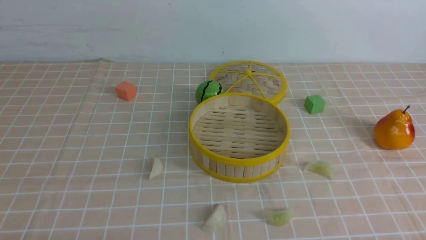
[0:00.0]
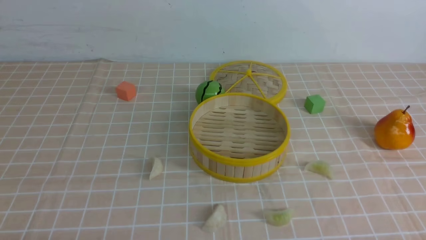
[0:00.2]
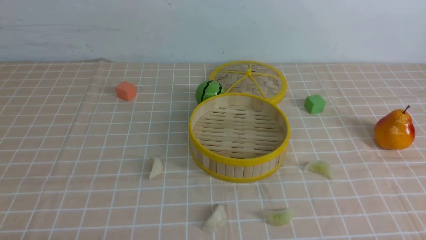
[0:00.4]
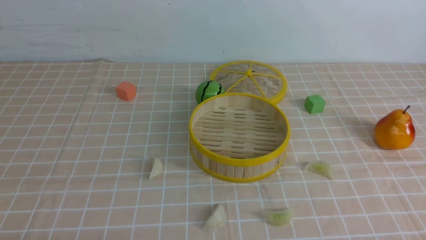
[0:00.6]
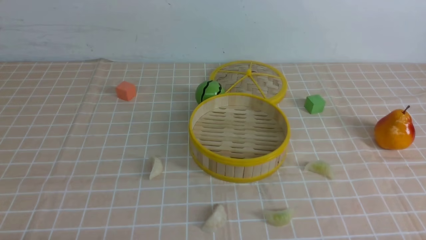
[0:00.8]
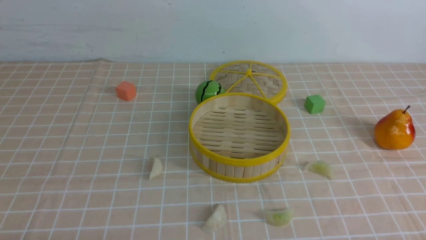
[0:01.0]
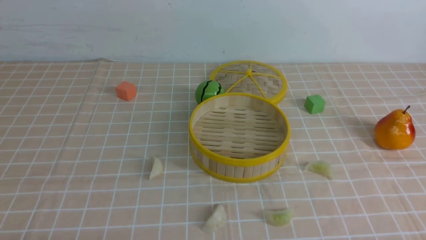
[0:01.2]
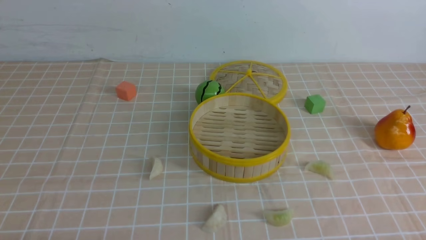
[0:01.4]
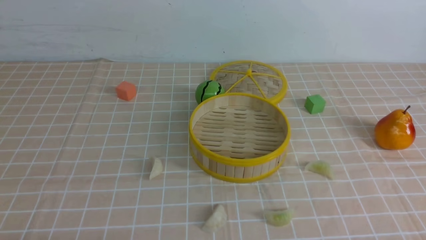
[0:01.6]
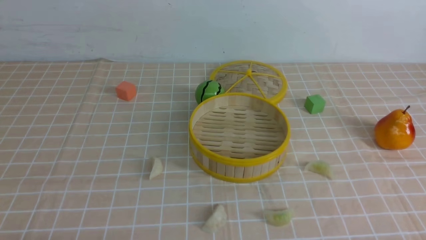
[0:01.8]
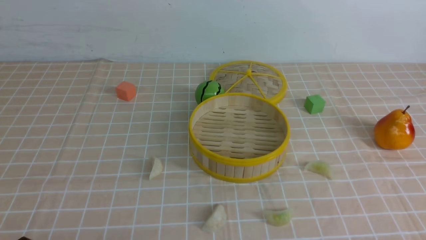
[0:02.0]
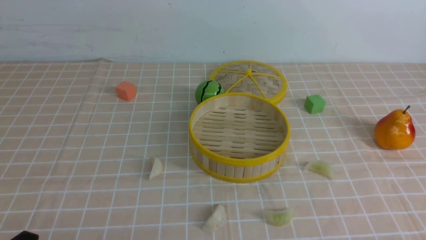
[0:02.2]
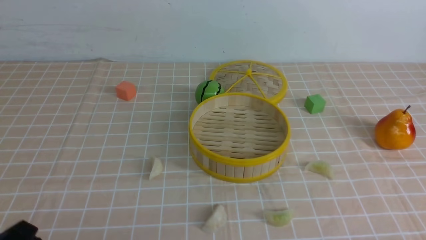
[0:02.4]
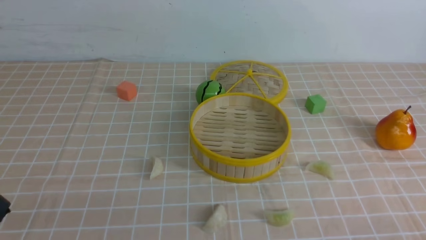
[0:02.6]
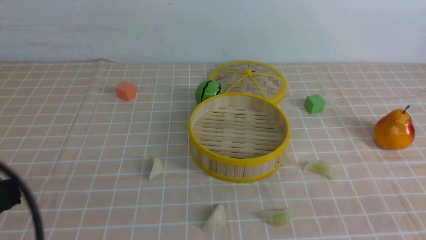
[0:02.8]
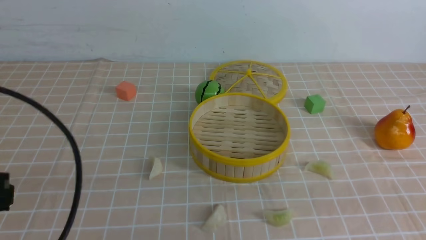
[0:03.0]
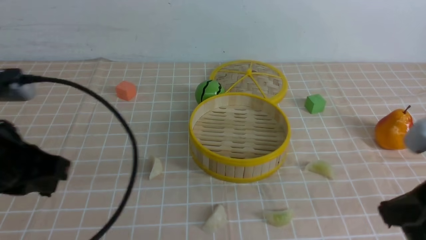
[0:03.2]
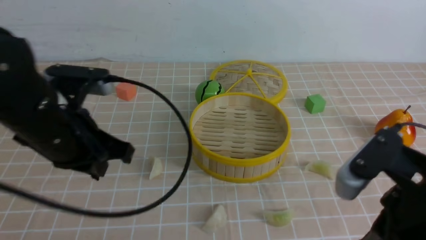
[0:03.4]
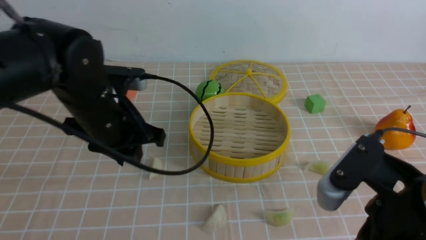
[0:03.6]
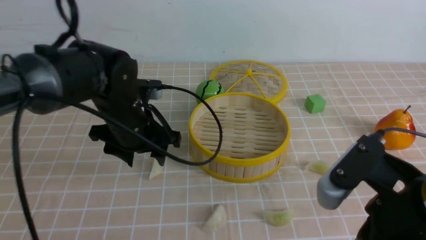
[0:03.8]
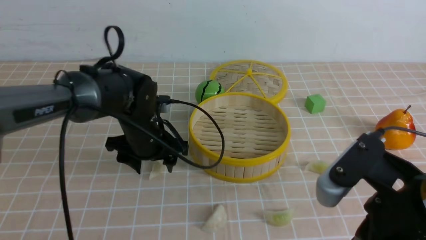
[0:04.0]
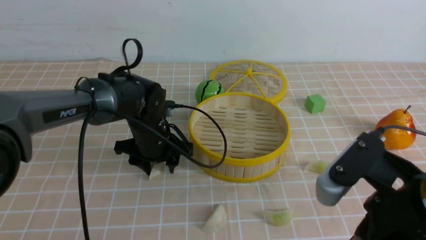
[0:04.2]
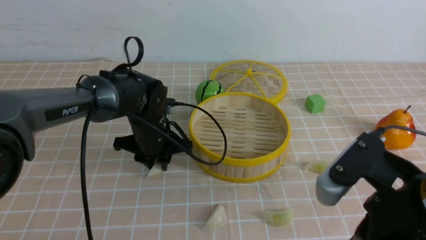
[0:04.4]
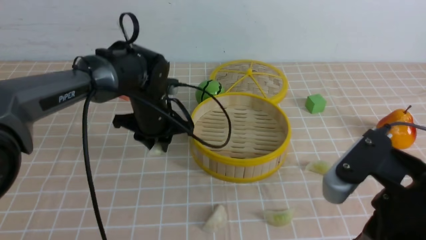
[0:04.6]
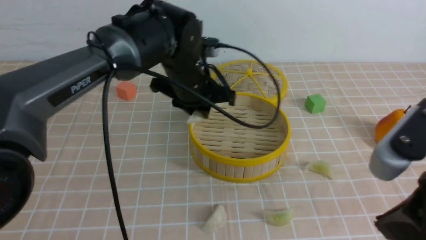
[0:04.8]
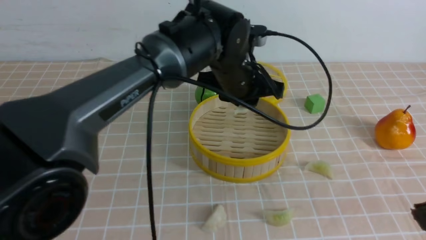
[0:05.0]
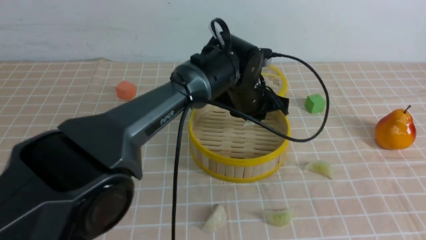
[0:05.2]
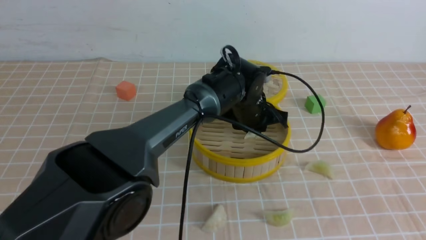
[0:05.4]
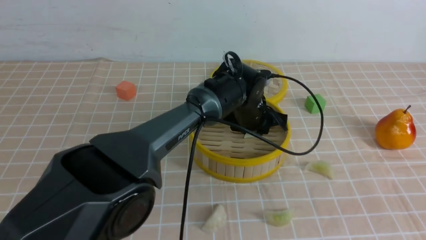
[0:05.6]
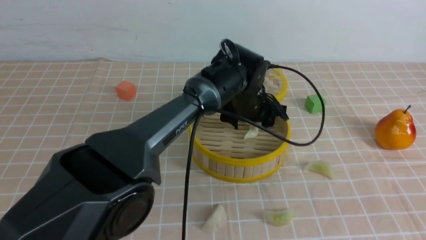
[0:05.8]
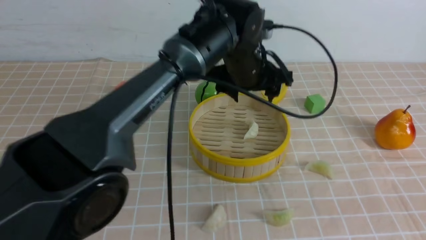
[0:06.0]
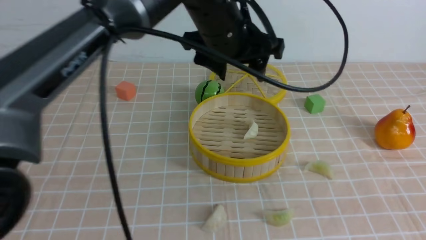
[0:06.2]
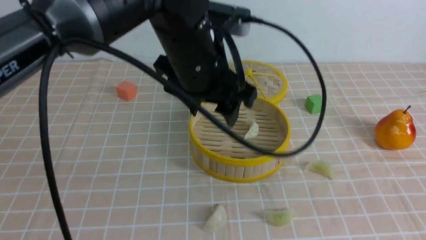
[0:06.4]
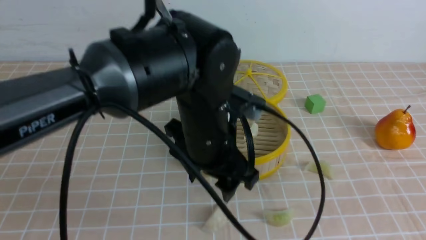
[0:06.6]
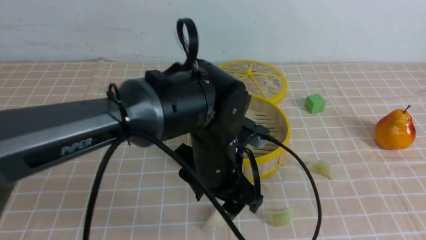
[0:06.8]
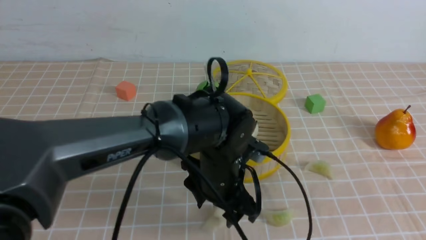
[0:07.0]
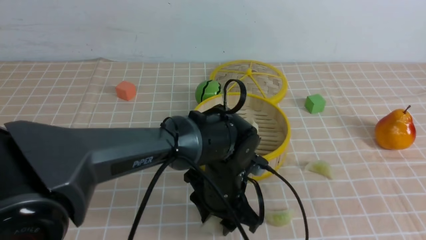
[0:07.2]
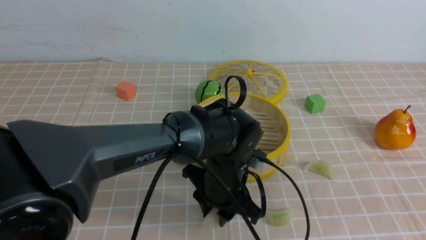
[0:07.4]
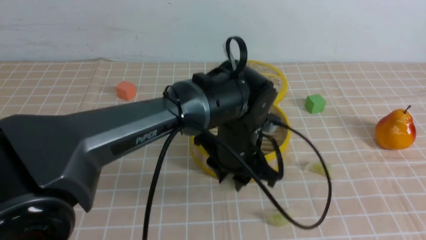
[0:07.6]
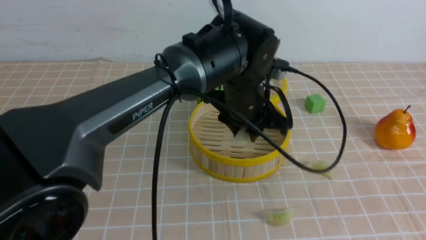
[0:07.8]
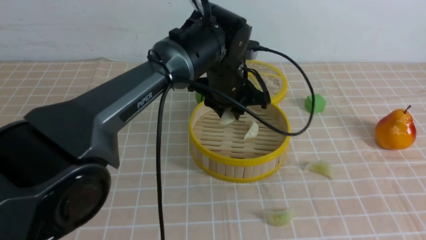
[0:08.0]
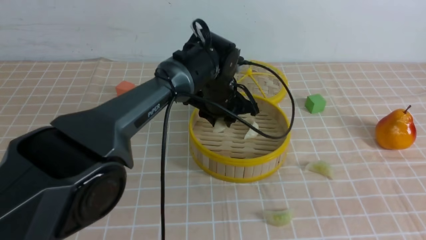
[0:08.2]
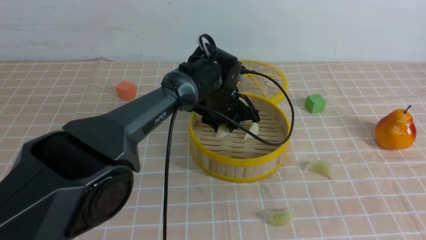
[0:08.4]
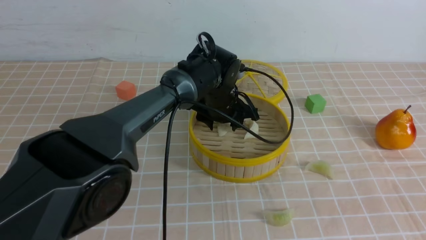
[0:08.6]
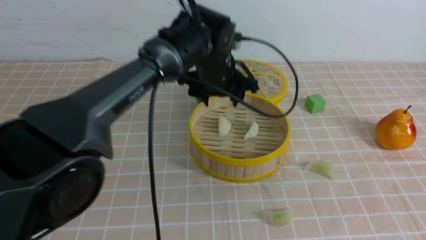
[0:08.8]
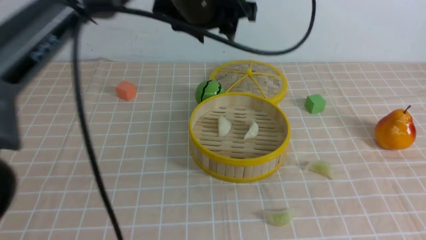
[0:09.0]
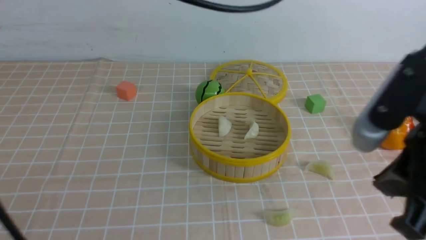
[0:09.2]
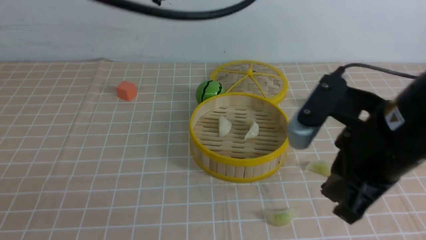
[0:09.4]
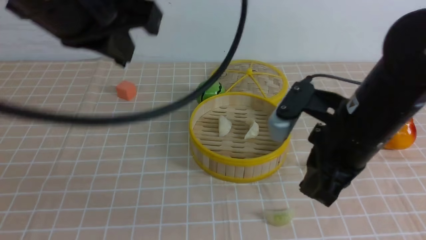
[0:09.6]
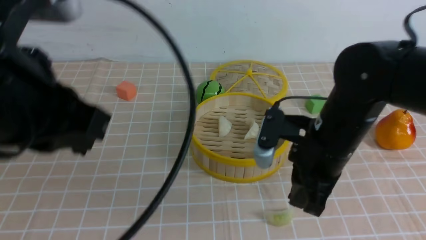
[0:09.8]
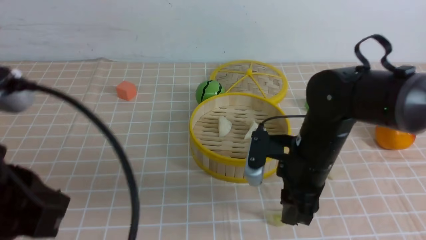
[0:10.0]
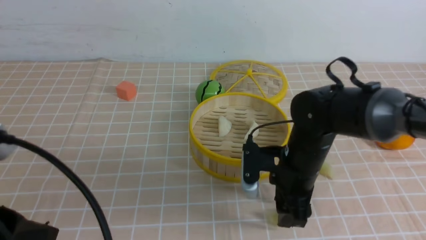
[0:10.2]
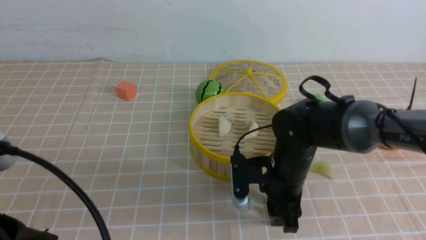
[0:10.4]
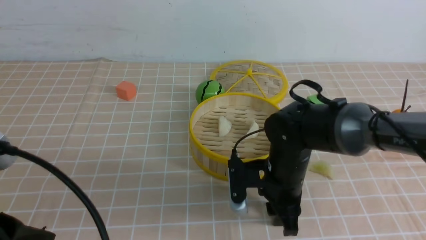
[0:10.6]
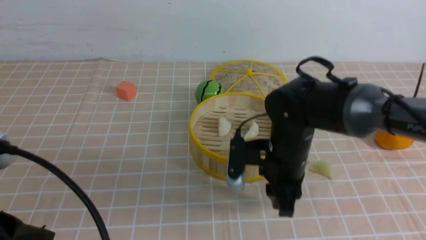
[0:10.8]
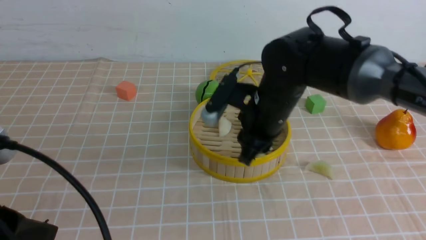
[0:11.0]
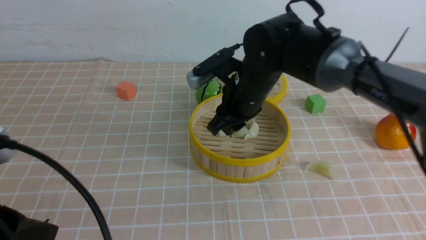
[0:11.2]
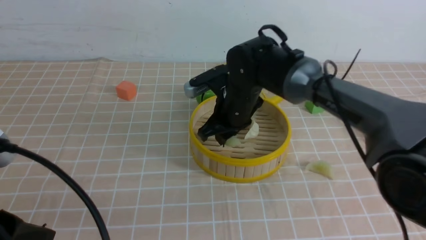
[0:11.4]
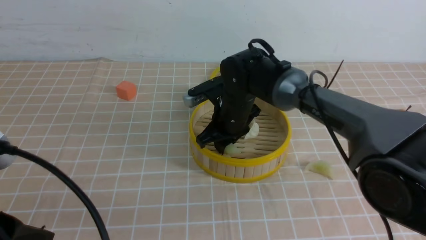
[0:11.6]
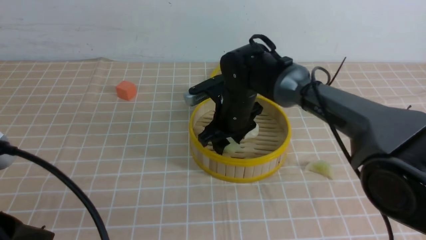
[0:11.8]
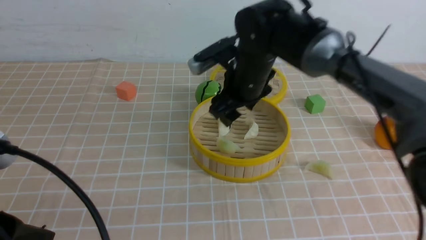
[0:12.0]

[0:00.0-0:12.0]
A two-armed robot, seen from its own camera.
Task of the whole recording: put the dumplings into the steamer on the table with the brown tablecloth.
Step, 0:00.0 to 0:04.2: use the left arm to grab a dumpling.
Step, 0:04.4 to 0:05.8: use the left arm to put the dumpling into the steamer.
Step, 0:06.0 to 0:07.2: use the left arm to grab a dumpling.
Step, 0:07.4 to 0:08.6: use the left arm to put the dumpling into the steamer.
Step, 0:09.0 to 0:10.4: use the right arm to grab a dumpling.
Step, 0:10.6 to 0:12.0: use the right arm to put the dumpling into the steamer.
0:01.6 to 0:03.0: The left gripper heads upward, covering approximately 15 cm, and closes.
0:03.0 to 0:04.4: The right gripper moves to the left, some 10 cm; the left gripper goes approximately 35 cm forward, downward and to the right, and opens its fingers.
0:04.4 to 0:06.0: The left gripper goes about 20 cm to the right and upward, and opens up; the right gripper shifts about 10 cm to the right, upward and backward.
0:06.0 to 0:07.6: The left gripper shifts some 15 cm backward and downward, and closes its fingers.
0:07.6 to 0:09.0: The left gripper moves up and down over about 15 cm, changing direction 2 times.
0:09.0 to 0:10.4: The left gripper heads backward and to the left, covering approximately 35 cm, and closes its fingers; the right gripper is displaced downward, forward and to the left by approximately 30 cm, and opens its fingers.
0:10.4 to 0:12.0: The right gripper moves forward, upward and to the left, approximately 15 cm.

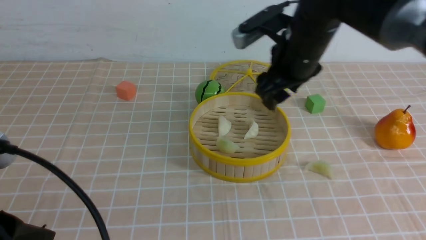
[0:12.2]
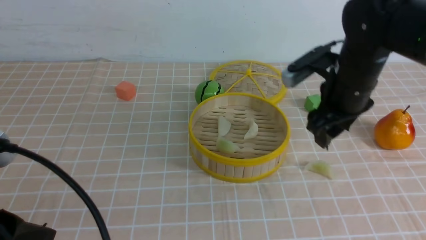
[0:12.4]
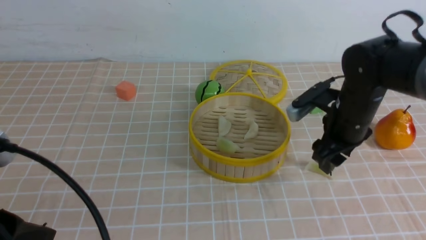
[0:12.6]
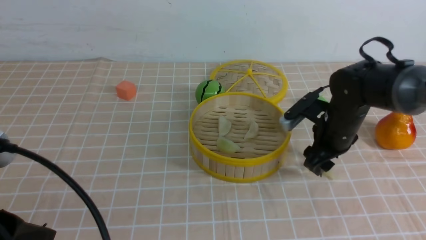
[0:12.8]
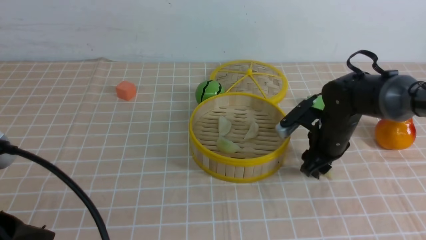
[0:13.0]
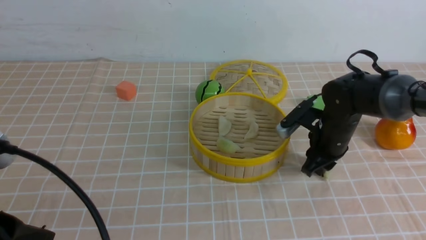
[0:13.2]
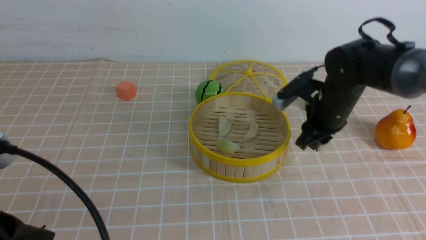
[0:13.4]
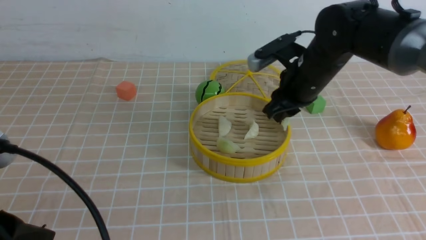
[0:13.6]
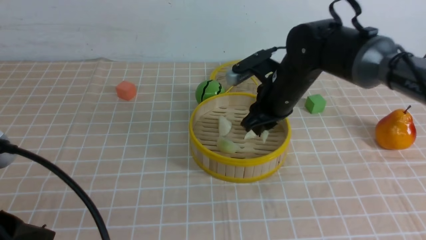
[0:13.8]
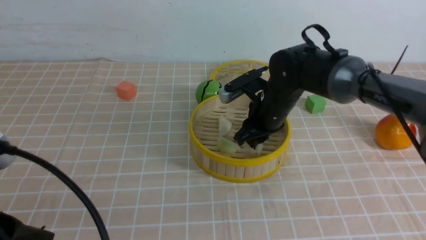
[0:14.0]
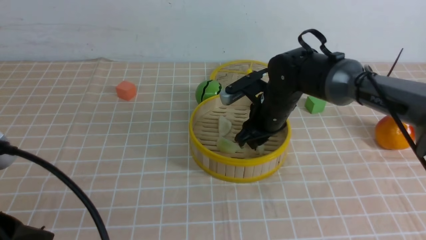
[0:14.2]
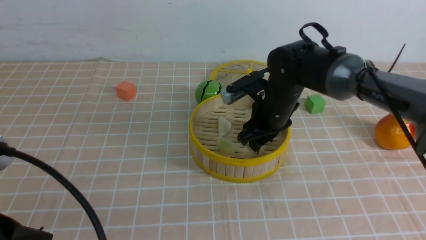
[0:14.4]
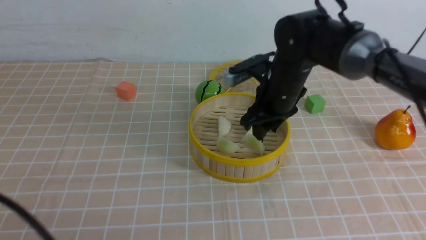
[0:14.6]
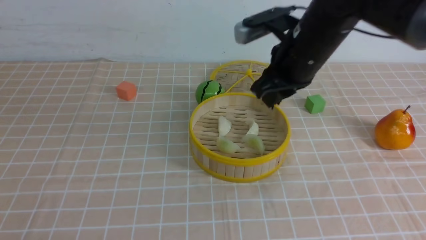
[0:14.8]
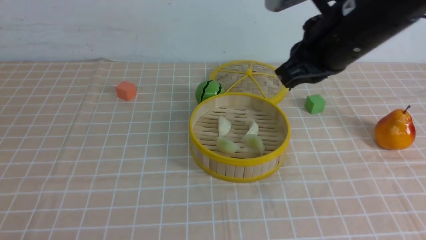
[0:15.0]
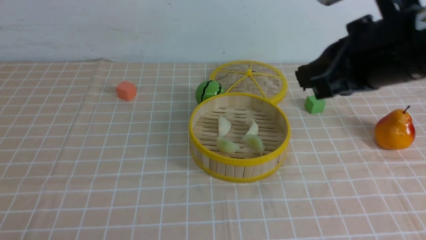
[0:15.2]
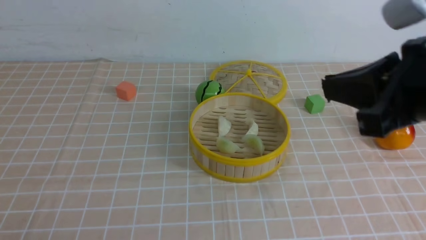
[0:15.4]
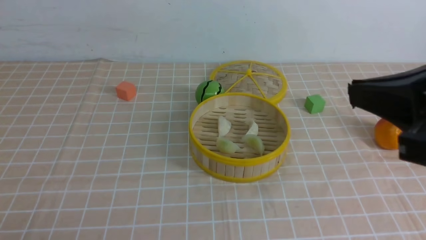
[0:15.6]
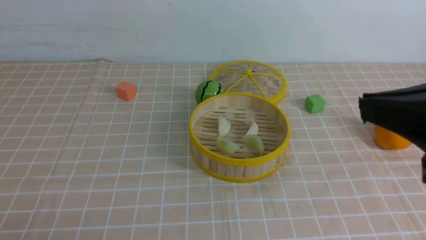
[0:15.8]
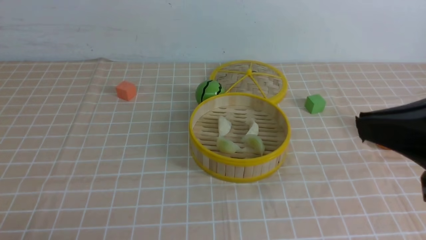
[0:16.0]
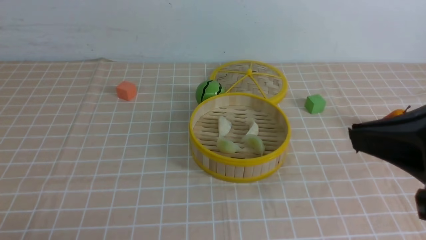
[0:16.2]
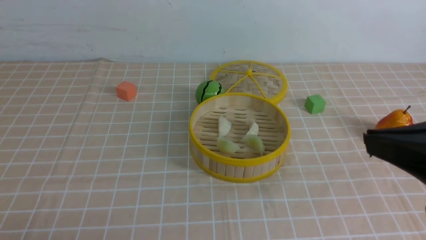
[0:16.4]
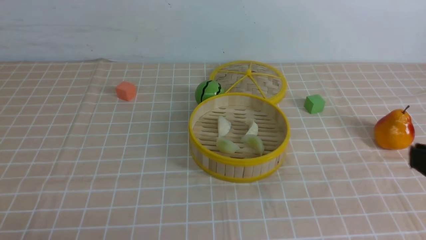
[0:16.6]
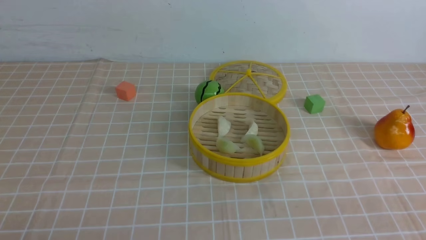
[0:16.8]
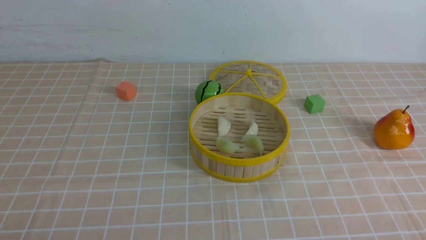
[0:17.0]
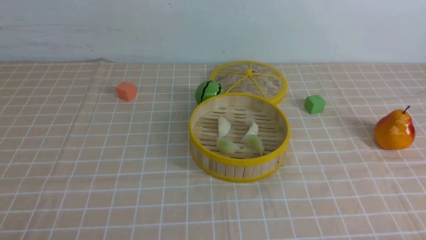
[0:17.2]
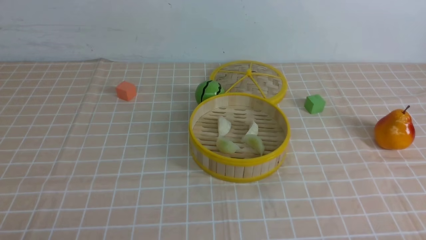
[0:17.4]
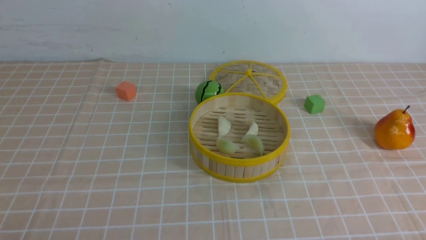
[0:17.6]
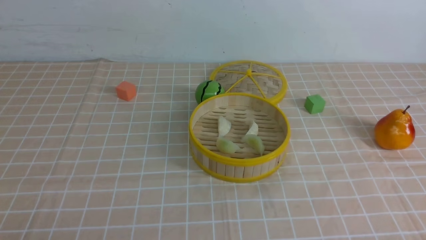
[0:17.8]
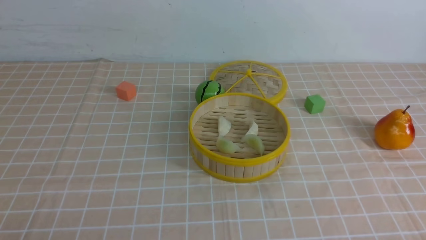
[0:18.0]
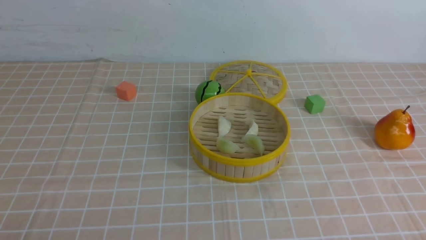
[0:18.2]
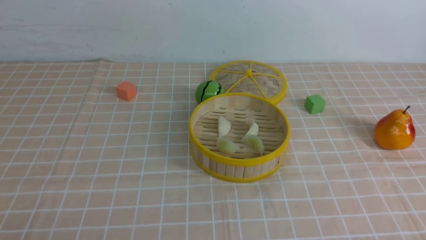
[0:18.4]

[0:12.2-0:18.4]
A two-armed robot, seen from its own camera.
Task of the whole recording: put the dumplings into the steamer on the table with the brown tablecloth.
Step, 0:12.2 to 0:13.0: use the right arm to grab a dumpling.
Step, 0:13.2 to 0:14.6: use the right arm to put the dumpling into the steamer.
0:12.2 to 0:13.8: The right gripper closes up.
0:13.8 to 0:15.4: The right gripper travels backward and upward by about 25 cm, and closes its fingers. The left gripper travels backward and to the left by roughly 10 cm.
0:15.4 to 0:16.8: The right gripper is displaced backward, downward and to the right by about 20 cm.
